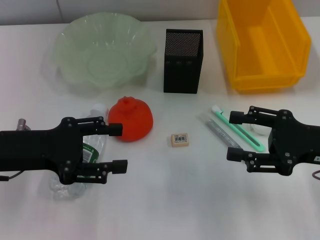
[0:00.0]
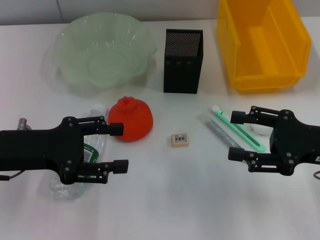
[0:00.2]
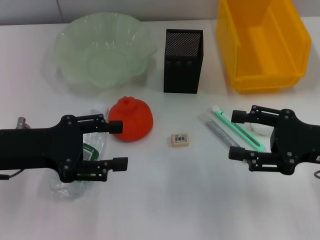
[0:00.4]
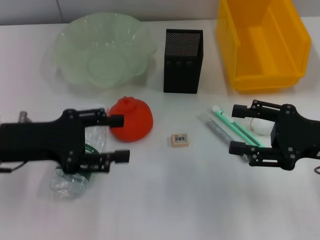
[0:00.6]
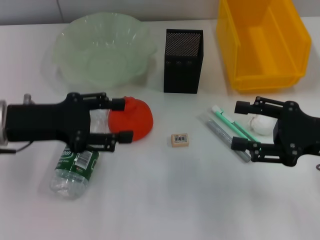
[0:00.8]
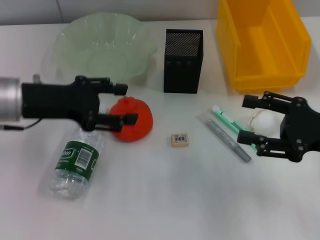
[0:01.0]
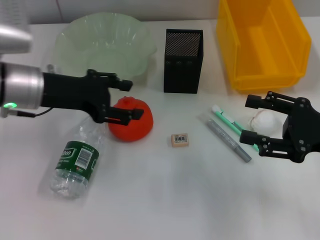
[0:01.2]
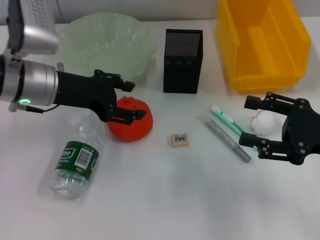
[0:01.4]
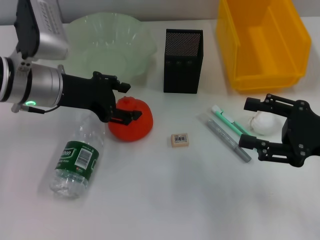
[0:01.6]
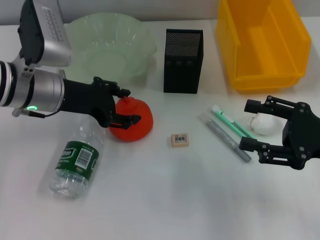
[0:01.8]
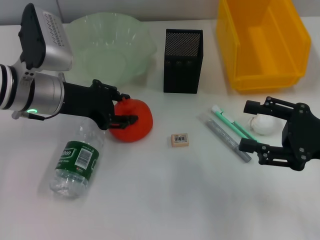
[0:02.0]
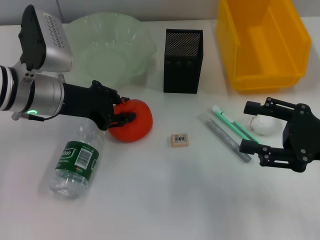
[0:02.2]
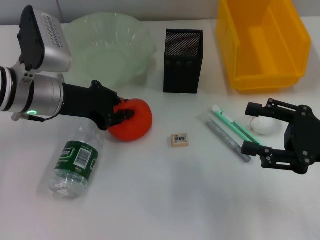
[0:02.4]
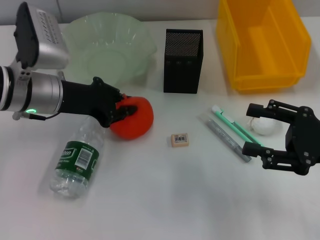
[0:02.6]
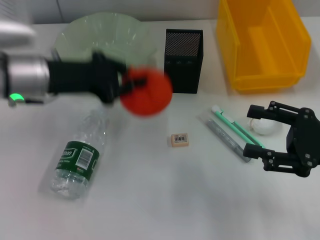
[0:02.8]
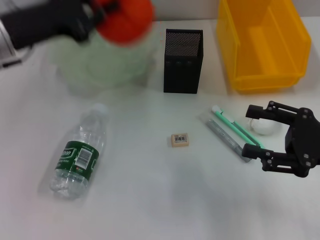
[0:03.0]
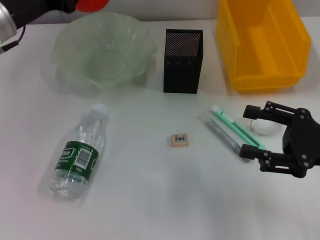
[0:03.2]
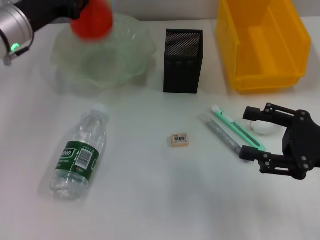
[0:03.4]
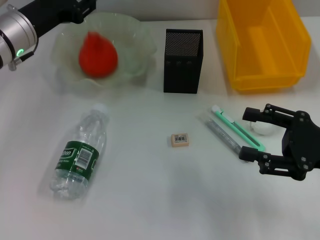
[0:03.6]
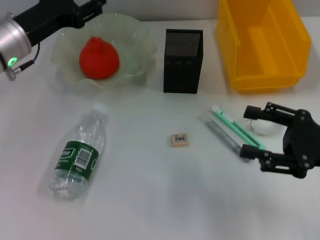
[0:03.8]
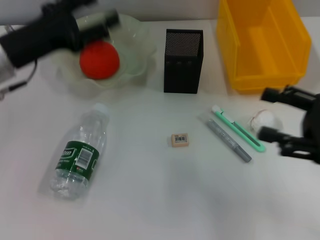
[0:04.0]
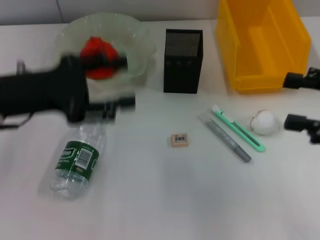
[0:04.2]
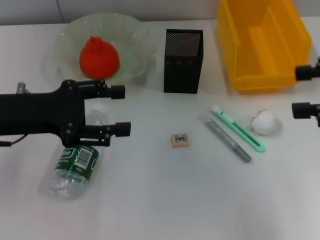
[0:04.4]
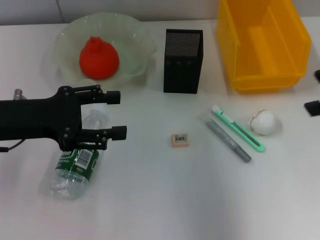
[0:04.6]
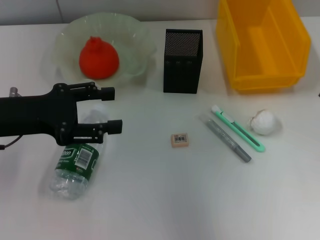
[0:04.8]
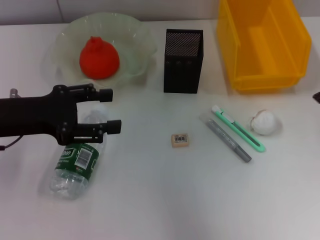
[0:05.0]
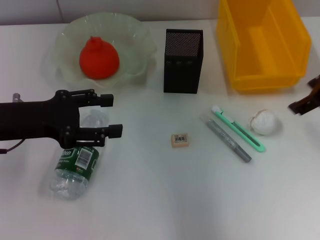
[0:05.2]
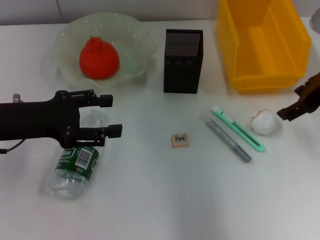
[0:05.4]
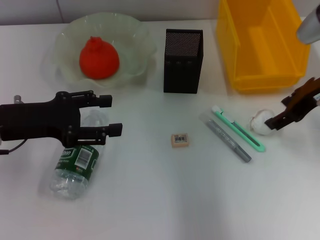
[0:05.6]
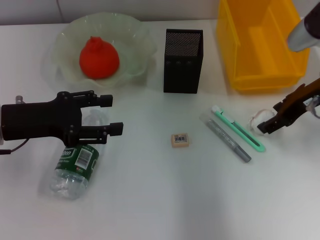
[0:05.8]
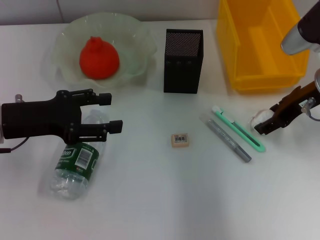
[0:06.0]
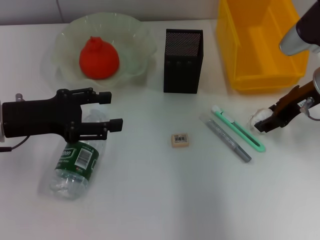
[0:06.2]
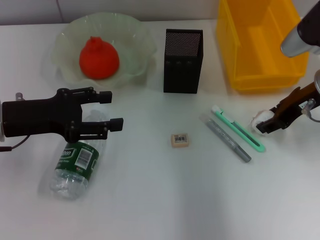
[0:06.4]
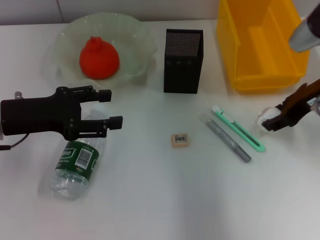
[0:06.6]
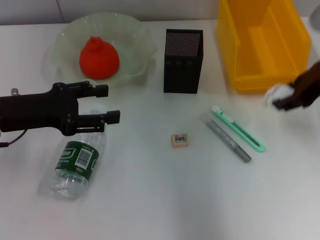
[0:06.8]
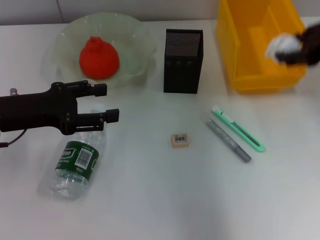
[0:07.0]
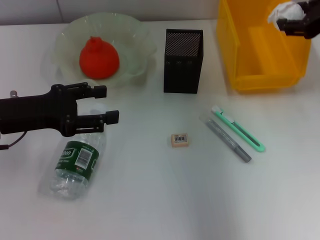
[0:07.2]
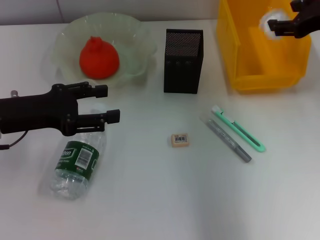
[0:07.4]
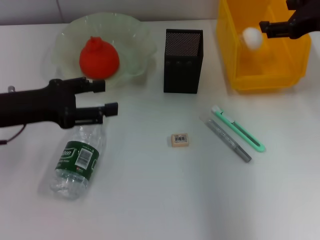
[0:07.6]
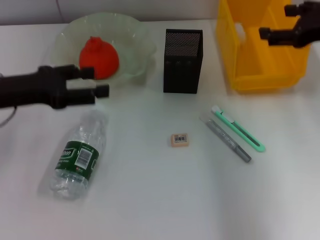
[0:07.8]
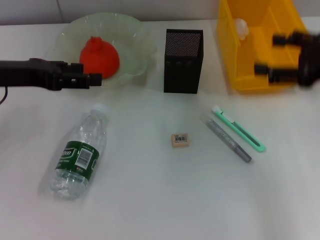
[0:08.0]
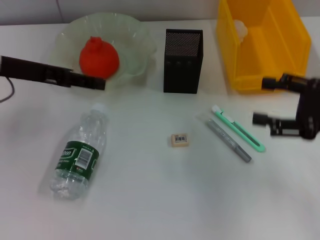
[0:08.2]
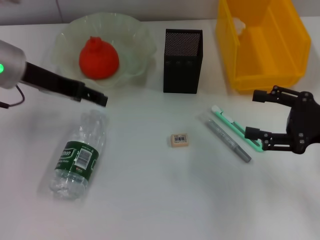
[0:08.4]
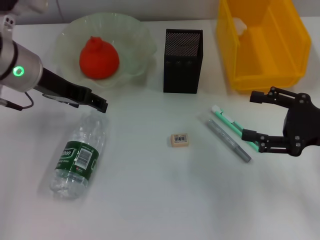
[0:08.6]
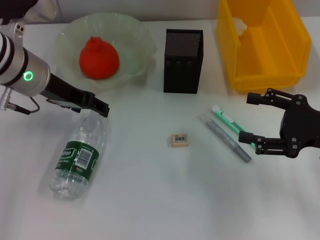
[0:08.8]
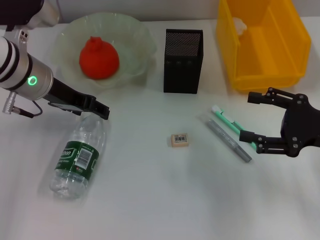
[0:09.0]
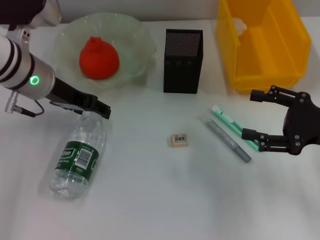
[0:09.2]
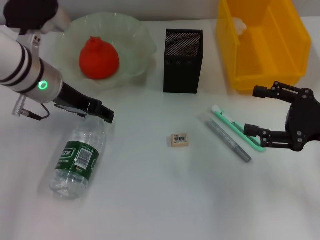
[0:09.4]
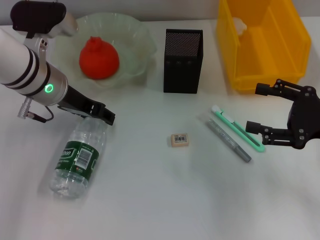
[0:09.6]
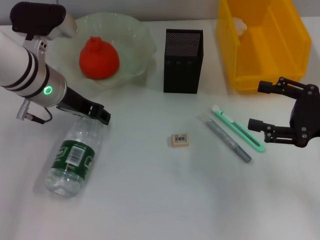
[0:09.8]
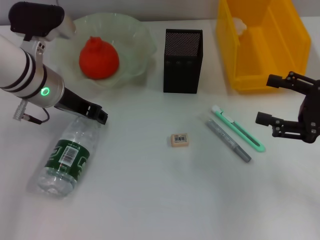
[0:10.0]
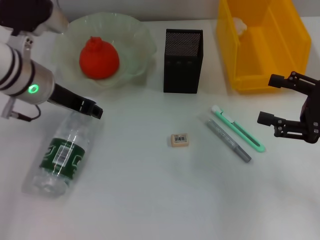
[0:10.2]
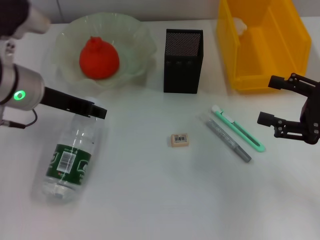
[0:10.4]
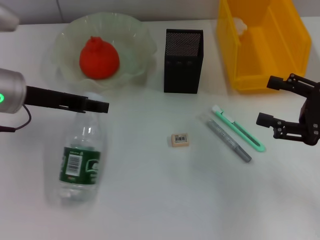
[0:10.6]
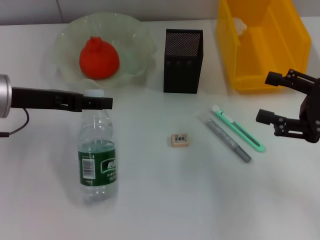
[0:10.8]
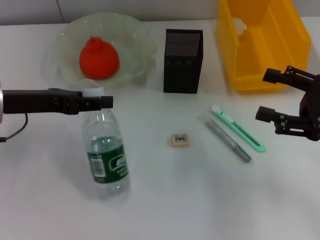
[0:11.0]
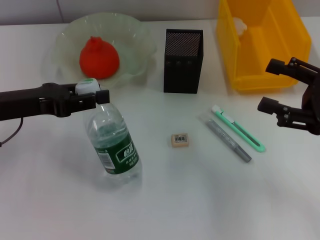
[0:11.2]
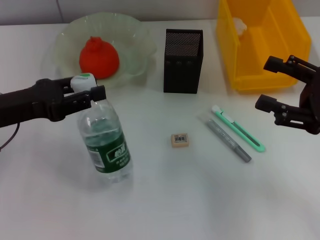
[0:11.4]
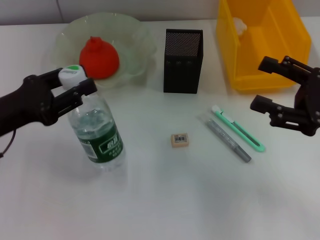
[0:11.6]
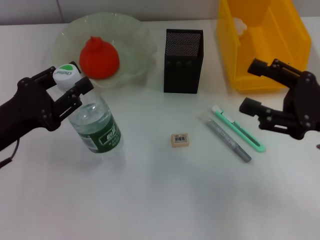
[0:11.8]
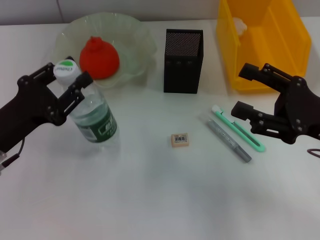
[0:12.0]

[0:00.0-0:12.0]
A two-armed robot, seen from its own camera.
Step, 0:00.0 to 0:02.2: Grab the orange with the left hand.
Step, 0:02.4 to 0:03.6: Place the orange into the fruit bowl with the left hand.
Step, 0:03.8 to 0:06.4: Grab the paper ball with the right hand.
Step, 0:06.6 to 0:07.6: Place the paper ball into the trash can with the right hand.
Step, 0:08.0 to 0:10.0: Grab the water bottle with the left hand.
0:00.0 to 0:01.6: The left gripper heads forward and to the right, covering approximately 10 cm.
0:01.6 to 0:03.0: The left gripper travels upward by about 5 cm, and closes.
0:03.0 to 0:04.4: The left gripper goes some 5 cm backward, and opens, while the right gripper travels upward by roughly 15 cm.
0:04.4 to 0:06.0: The right gripper is displaced forward, downward and to the left by some 15 cm.
0:06.0 to 0:07.6: The right gripper moves upward, approximately 5 cm.
0:07.6 to 0:09.0: The left gripper travels forward and to the right by some 10 cm. Meanwhile the right gripper shifts some 15 cm downward and backward.
0:09.0 to 0:10.4: The left gripper closes its fingers.
0:10.4 to 0:12.0: The left gripper moves backward, downward and to the left, roughly 15 cm. The right gripper is displaced to the left by roughly 5 cm.

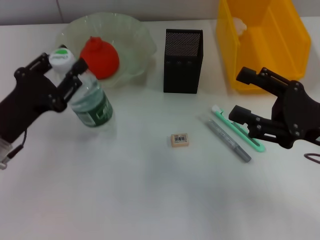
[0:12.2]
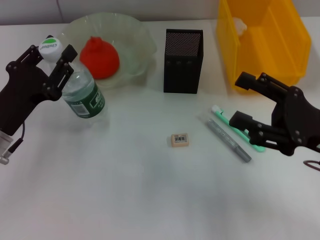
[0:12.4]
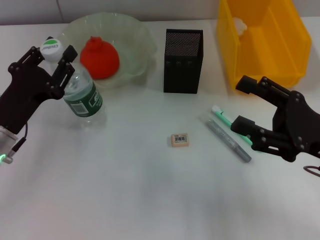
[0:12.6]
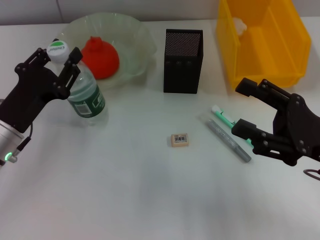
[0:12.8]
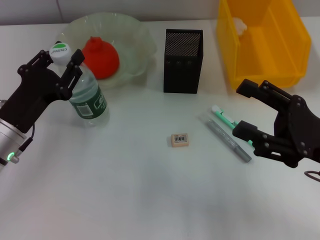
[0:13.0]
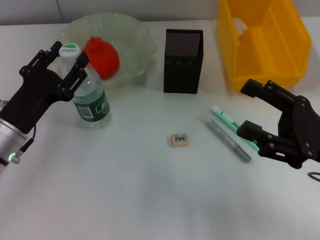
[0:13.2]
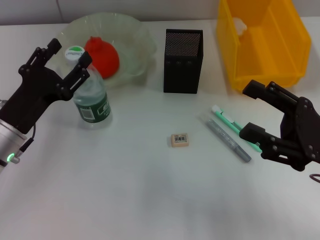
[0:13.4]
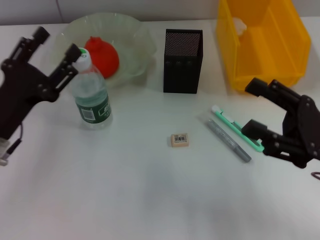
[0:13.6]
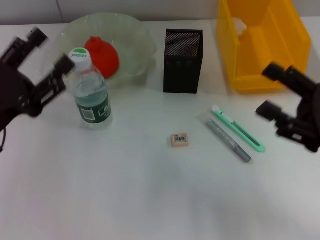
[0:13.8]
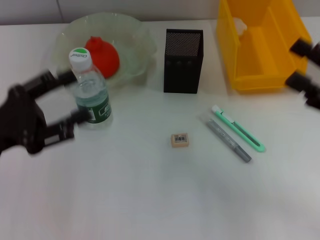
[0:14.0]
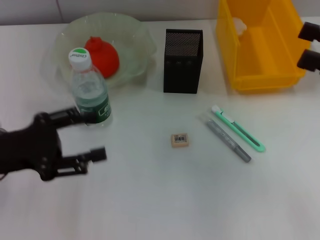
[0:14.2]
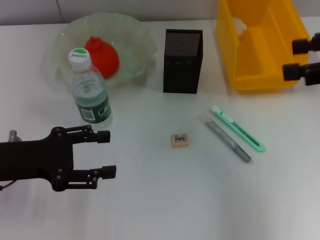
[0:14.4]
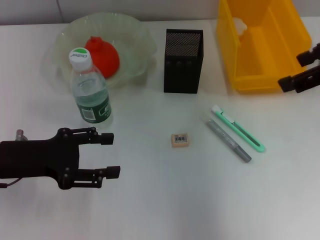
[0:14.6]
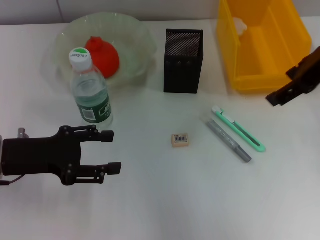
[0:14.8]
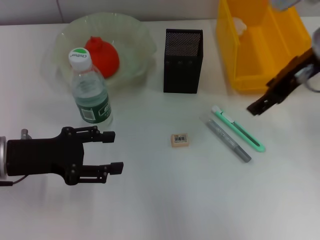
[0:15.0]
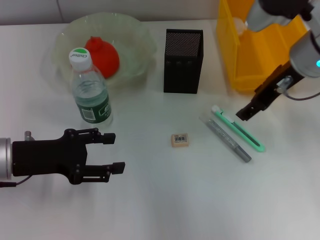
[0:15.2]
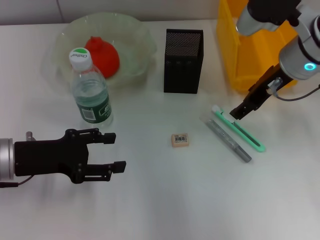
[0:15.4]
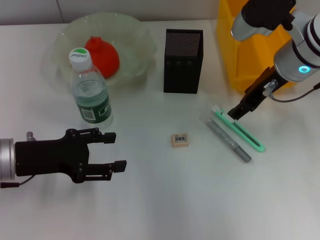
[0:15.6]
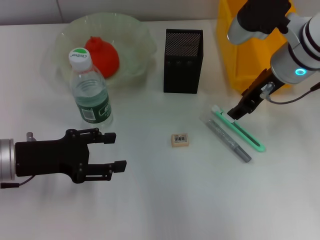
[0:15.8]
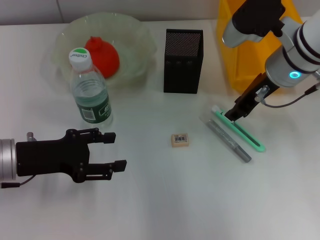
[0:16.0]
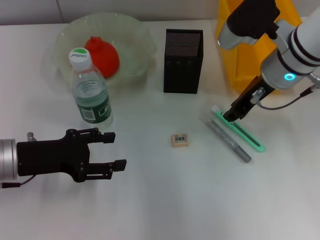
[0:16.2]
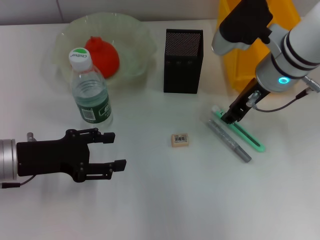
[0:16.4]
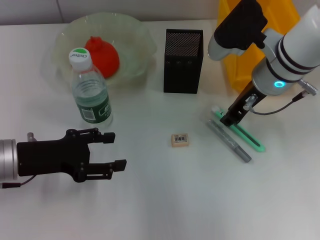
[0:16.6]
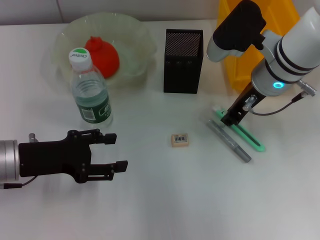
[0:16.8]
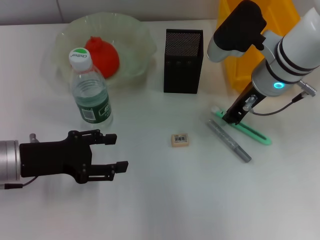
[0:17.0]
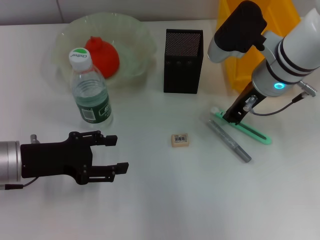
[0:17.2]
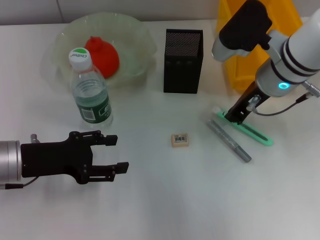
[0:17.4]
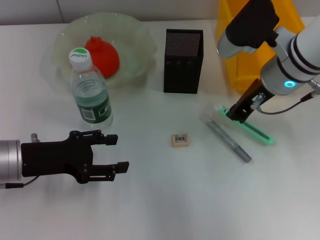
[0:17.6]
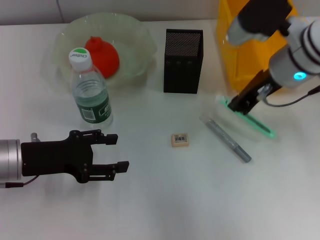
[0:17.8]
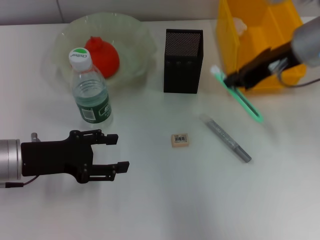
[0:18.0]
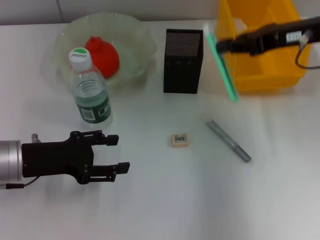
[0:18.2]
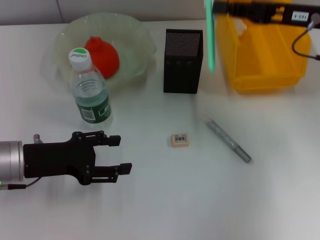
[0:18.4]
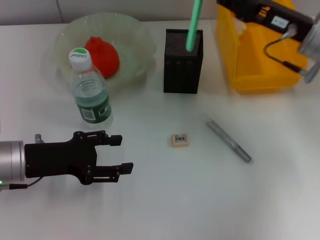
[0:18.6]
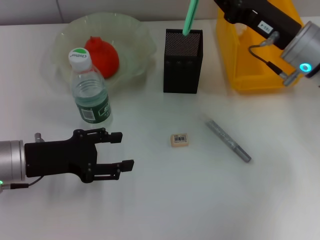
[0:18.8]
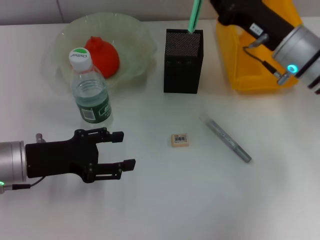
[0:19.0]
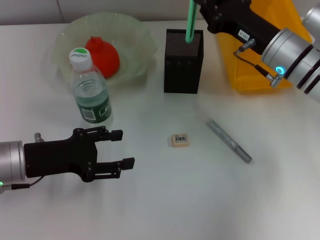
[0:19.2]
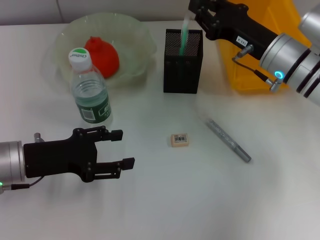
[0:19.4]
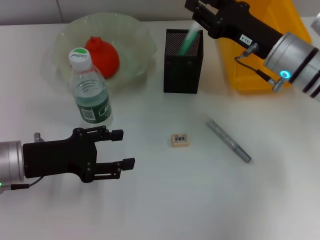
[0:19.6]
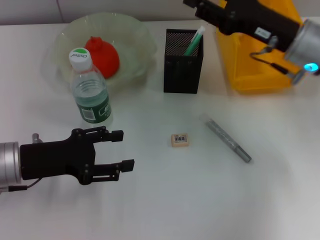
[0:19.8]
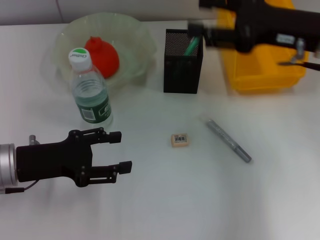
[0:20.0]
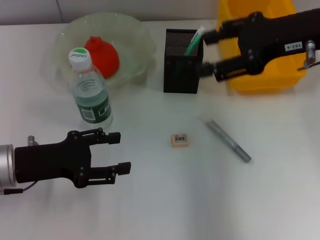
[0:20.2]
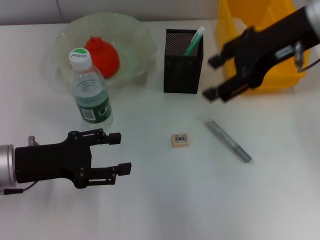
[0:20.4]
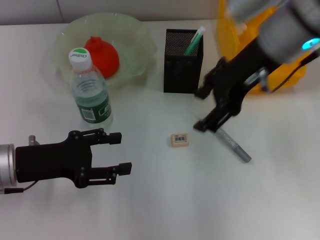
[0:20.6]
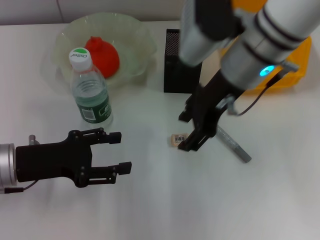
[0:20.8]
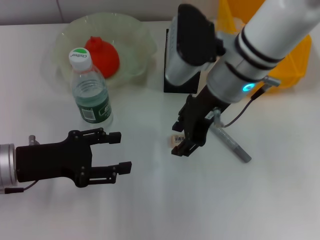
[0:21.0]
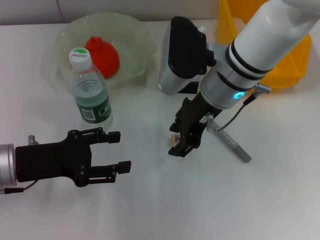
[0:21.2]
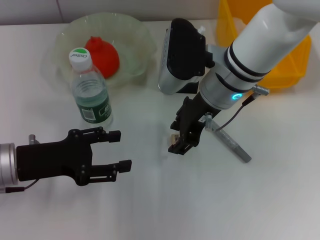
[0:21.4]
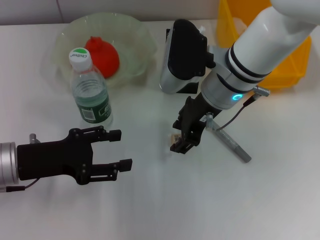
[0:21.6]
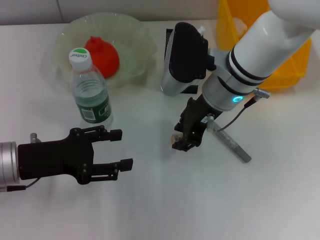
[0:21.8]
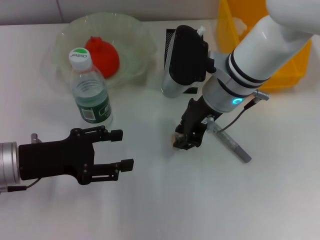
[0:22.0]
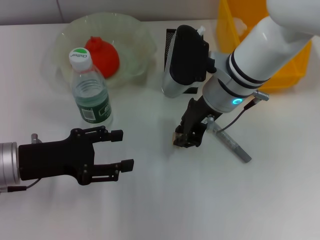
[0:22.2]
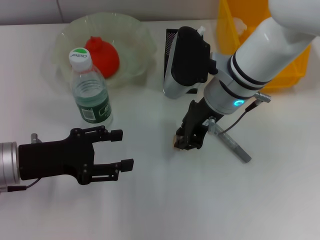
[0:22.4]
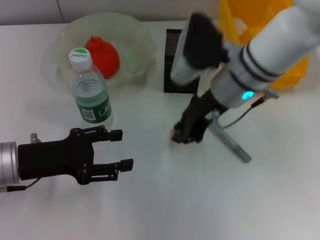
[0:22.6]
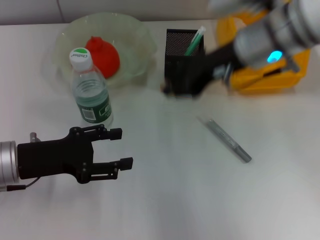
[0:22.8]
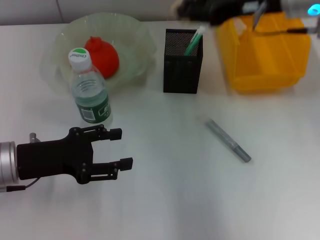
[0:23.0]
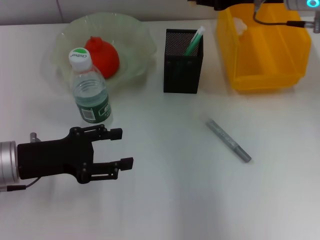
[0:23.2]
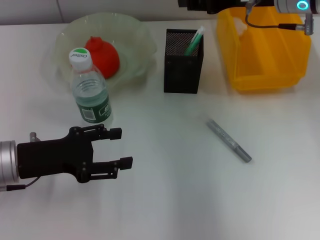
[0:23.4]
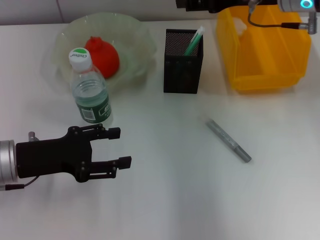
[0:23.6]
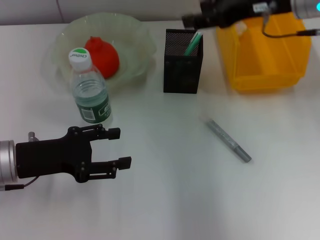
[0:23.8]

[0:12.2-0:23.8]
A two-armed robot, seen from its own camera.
Step, 0:13.6 to 0:17.2: Grab the blue utility knife with the right hand.
Step, 0:17.4 to 0:19.6: Place the blue utility knife into the pen holder with the right hand.
Step, 0:19.8 to 0:22.0: Grab the eraser with the right hand.
Step, 0:22.2 to 0:23.2: Put the eraser into the pen holder with the right hand.
0:12.2 to 0:13.6: The left gripper opens its fingers.
0:13.6 to 0:15.0: The right gripper is displaced forward, upward and to the left by approximately 20 cm.
0:15.0 to 0:16.6: The right gripper goes roughly 10 cm downward and to the left, and closes its fingers.
0:16.6 to 0:18.0: The right gripper travels upward and to the right by roughly 10 cm.
0:18.0 to 0:19.4: The right gripper moves downward, approximately 10 cm.
0:19.4 to 0:21.0: The right gripper moves to the left and upward, roughly 15 cm, and opens up.
0:21.0 to 0:22.4: The right gripper closes up.
0:22.4 to 0:23.8: The right gripper is displaced to the right and upward by approximately 15 cm, and opens its fingers.
